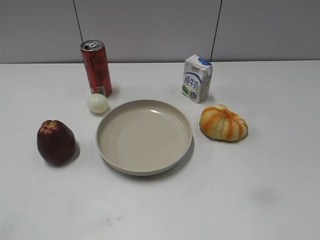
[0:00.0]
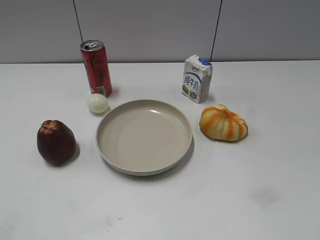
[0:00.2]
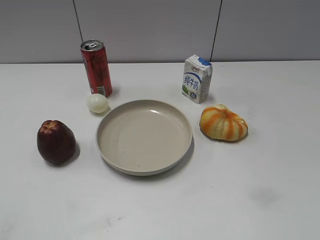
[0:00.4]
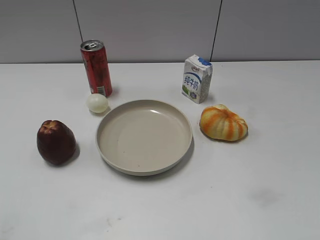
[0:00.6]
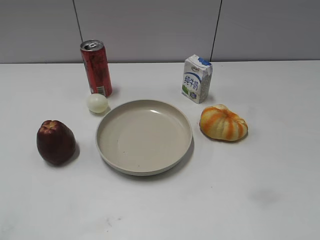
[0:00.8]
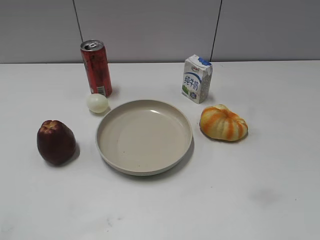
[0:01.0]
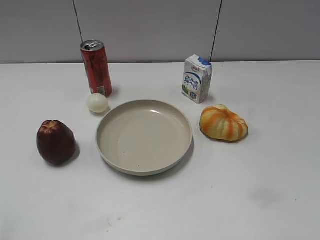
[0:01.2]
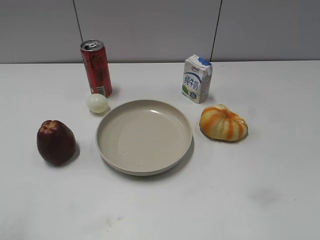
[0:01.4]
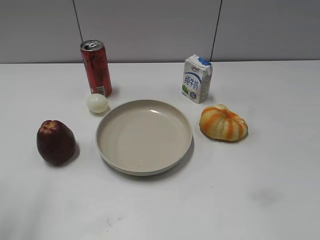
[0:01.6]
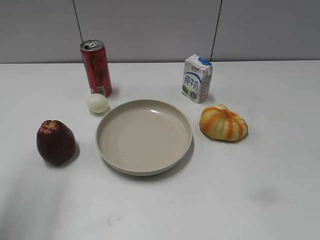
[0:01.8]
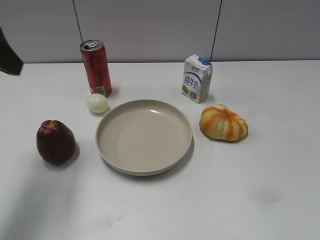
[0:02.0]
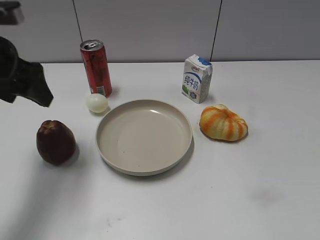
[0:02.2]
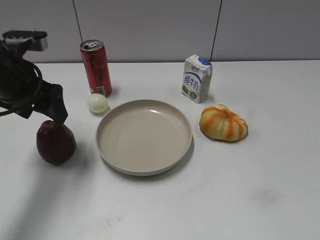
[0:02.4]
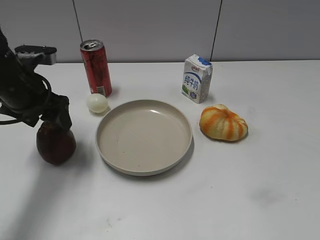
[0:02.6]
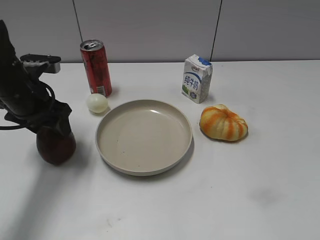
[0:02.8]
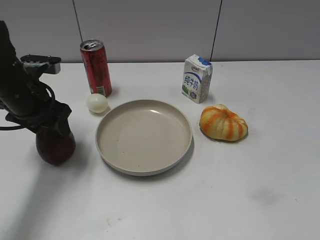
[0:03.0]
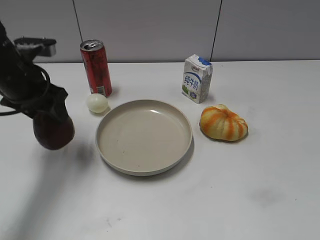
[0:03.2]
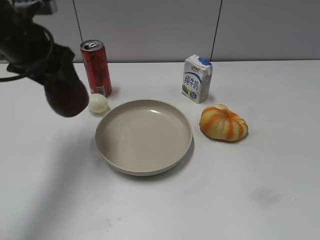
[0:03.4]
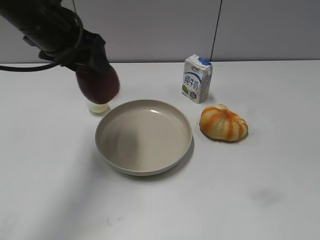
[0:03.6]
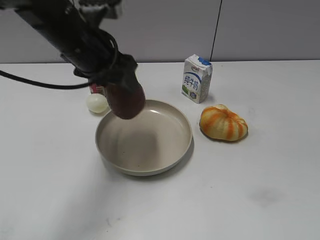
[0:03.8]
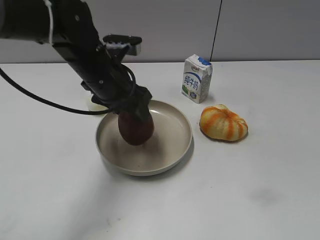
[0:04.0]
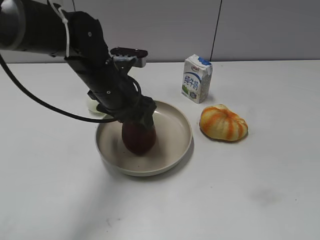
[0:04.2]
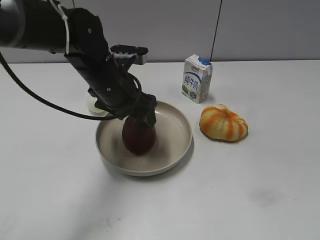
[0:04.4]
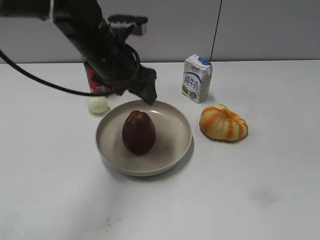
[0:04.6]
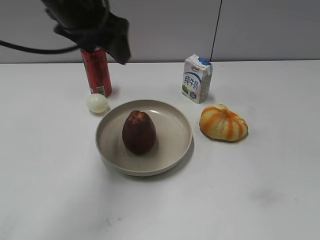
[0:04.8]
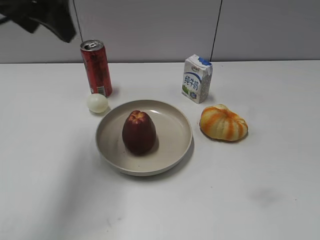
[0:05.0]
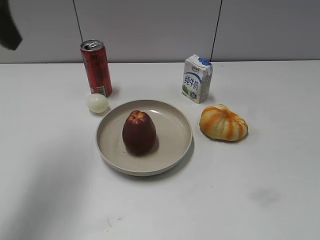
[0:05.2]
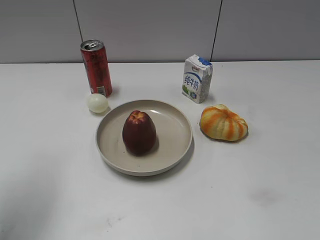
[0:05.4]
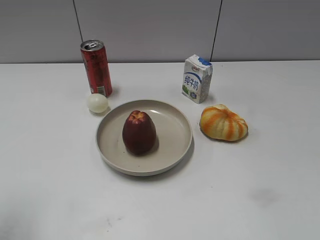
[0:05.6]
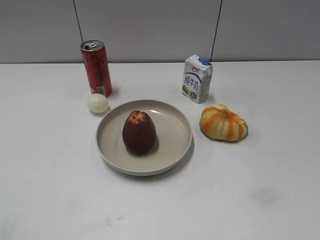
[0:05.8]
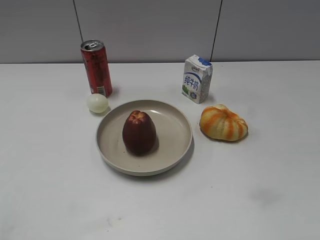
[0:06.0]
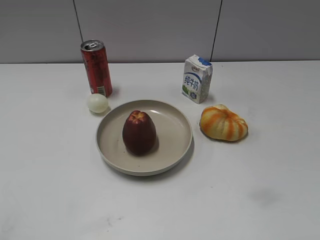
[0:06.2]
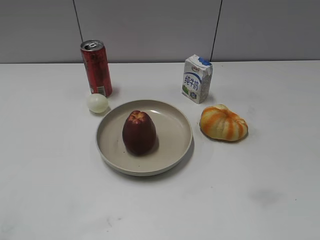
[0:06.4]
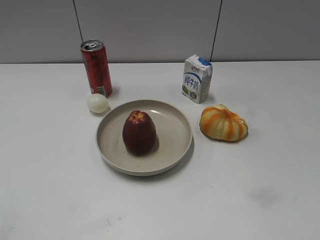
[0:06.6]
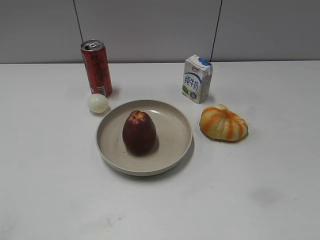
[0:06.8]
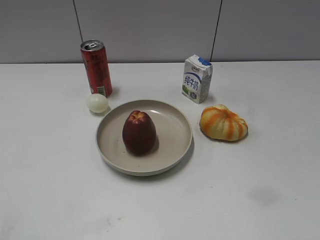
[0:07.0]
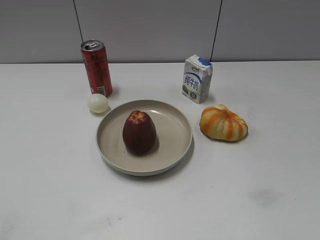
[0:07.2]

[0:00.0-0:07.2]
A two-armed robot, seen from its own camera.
Step, 0:00.8 to 0:02.8: Grasp the apple with left gripper.
Step, 0:03.2 to 0:04.4: Place the apple on the plate with left gripper.
0:01.4 to 0:02.8: The left gripper travels forward and downward by some 30 cm, and opens and closes again.
0:02.8 to 0:04.4: The left gripper moves to the right, roughly 15 cm, and opens its fingers.
0:04.4 to 0:05.8: The left gripper is displaced backward, to the left and upward by approximately 35 cm, and closes up.

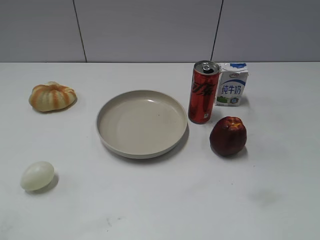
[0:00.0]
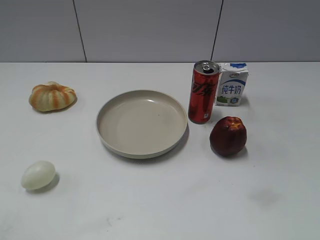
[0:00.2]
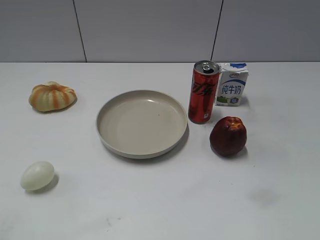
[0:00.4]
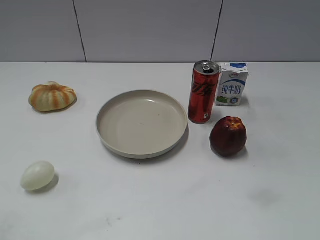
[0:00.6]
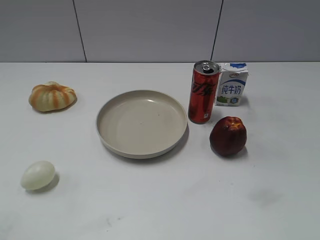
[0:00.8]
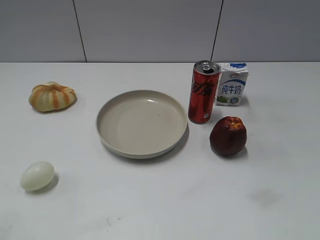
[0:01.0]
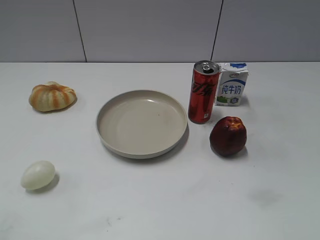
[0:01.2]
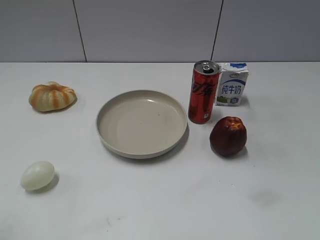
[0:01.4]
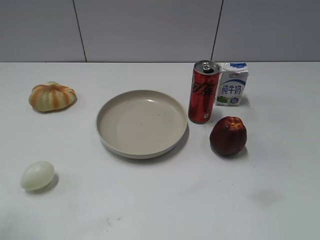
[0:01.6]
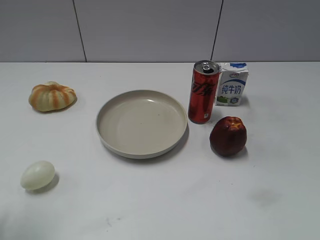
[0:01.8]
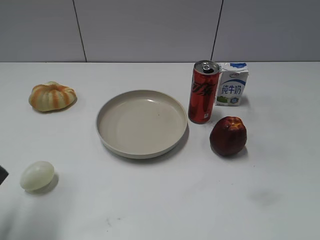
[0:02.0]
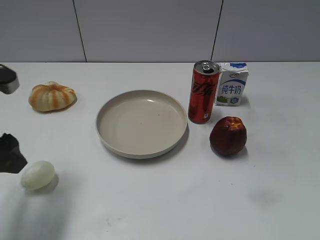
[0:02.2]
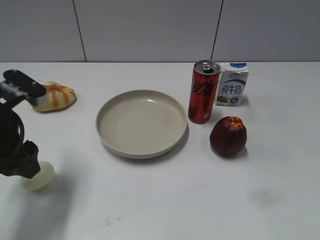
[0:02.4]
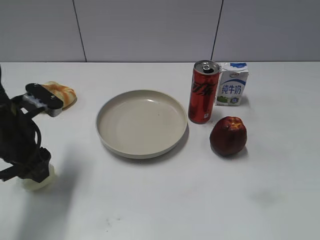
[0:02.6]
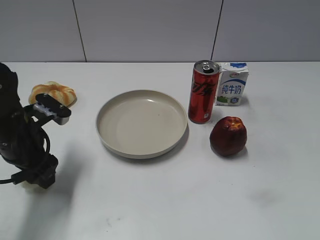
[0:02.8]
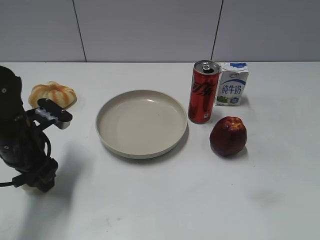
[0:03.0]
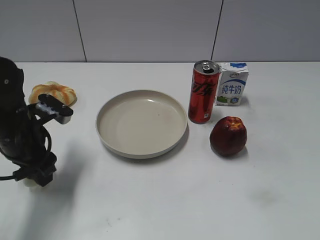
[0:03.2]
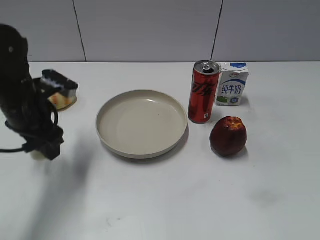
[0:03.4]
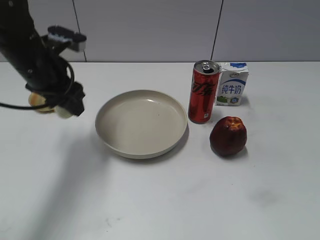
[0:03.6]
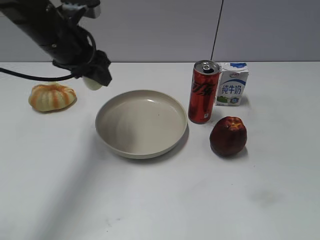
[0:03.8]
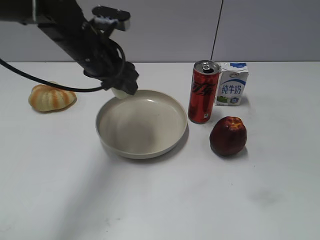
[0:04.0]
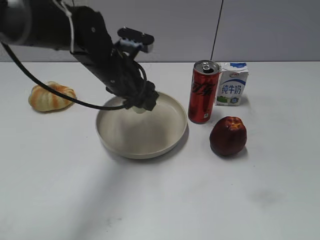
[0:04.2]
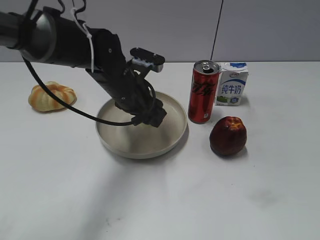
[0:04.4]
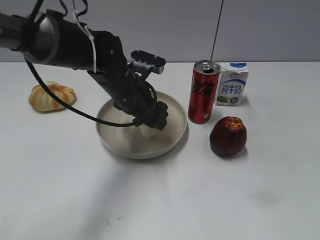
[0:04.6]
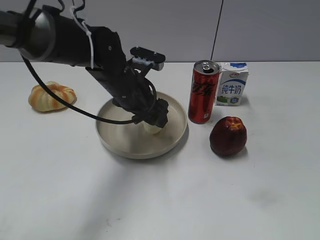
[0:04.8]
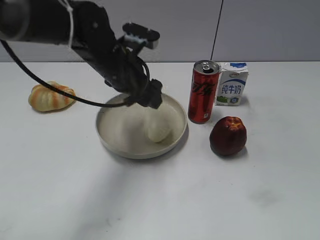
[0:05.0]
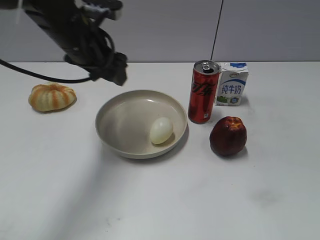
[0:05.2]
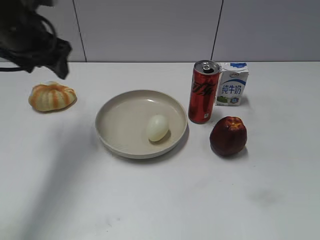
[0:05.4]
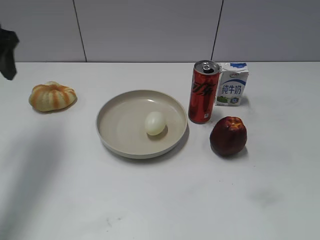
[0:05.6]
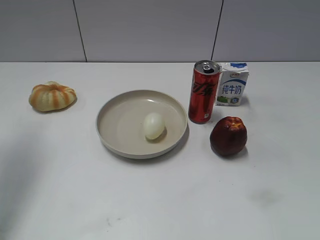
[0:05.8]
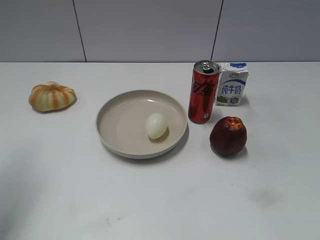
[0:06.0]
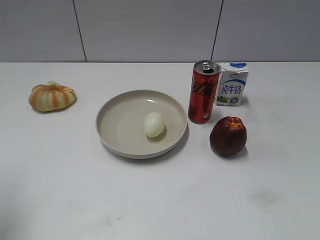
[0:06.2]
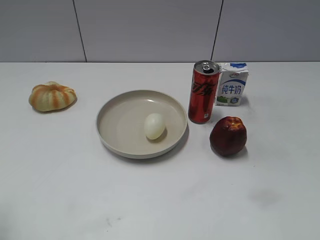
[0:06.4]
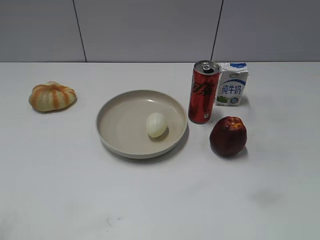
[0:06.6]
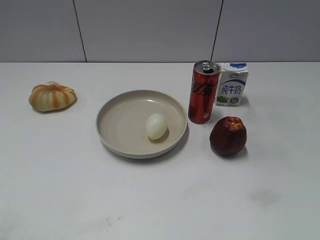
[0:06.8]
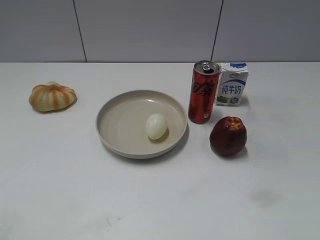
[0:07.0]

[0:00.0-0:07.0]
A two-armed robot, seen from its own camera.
Step, 0:00.0 to 0:03.0: Grasp the egg with left gripper.
Step, 0:03.2 to 0:05.0: Place the egg on the plate with left gripper.
0:01.4 to 0:02.8: The left gripper moves forward, downward and to the right, about 25 cm.
0:02.8 to 0:04.2: The left gripper is displaced to the right and forward by roughly 15 cm, and closes.
0:04.2 to 0:05.6: The left gripper shifts roughly 25 cm to the left and upward, and opens.
0:05.6 to 0:07.0: The left gripper goes about 30 cm backward.

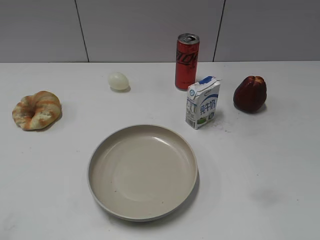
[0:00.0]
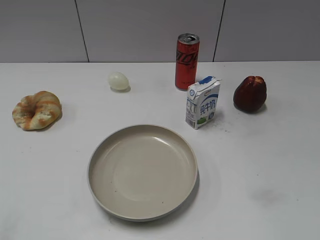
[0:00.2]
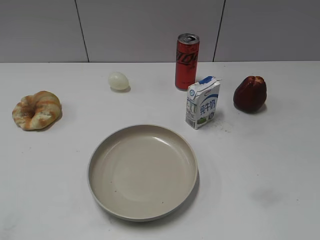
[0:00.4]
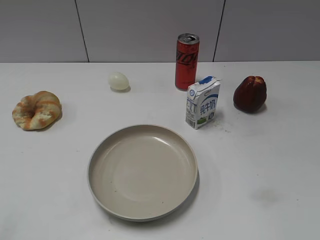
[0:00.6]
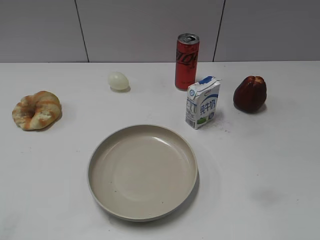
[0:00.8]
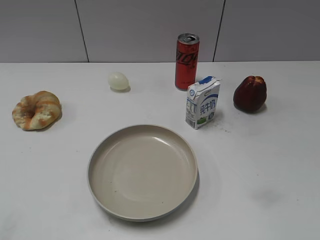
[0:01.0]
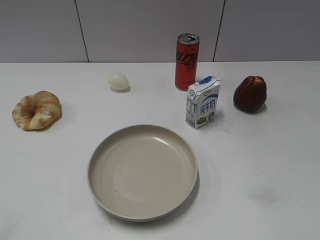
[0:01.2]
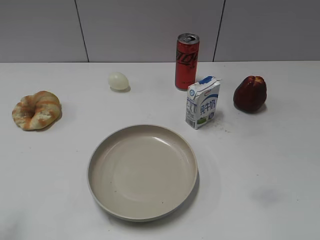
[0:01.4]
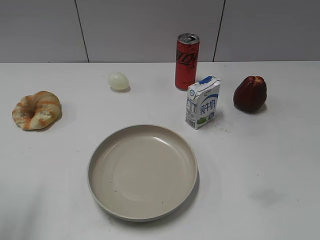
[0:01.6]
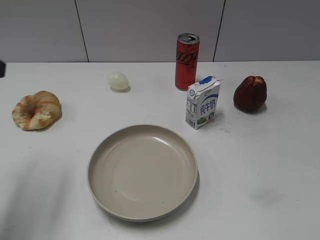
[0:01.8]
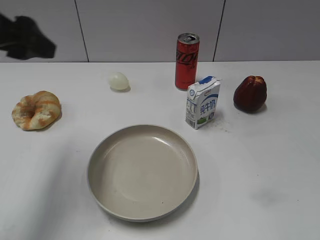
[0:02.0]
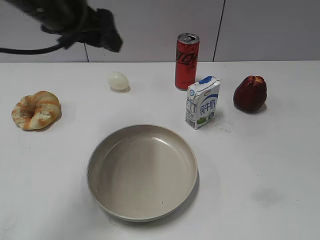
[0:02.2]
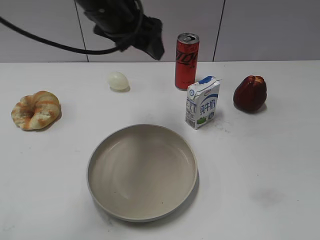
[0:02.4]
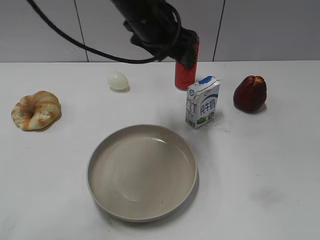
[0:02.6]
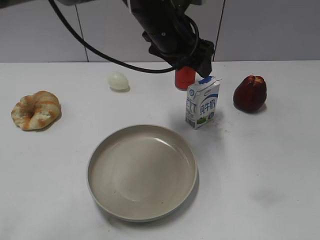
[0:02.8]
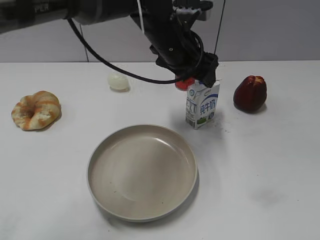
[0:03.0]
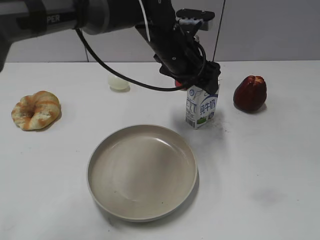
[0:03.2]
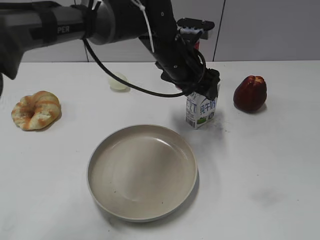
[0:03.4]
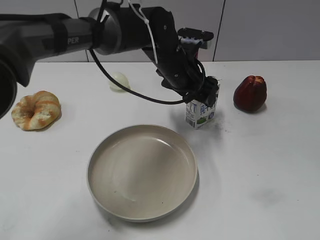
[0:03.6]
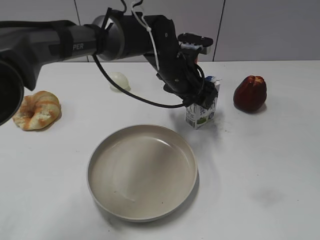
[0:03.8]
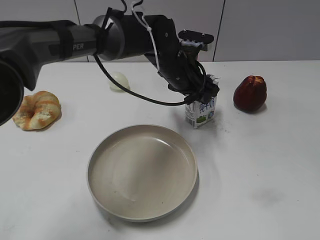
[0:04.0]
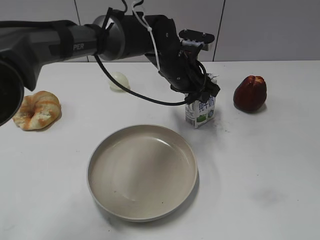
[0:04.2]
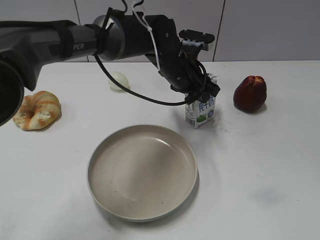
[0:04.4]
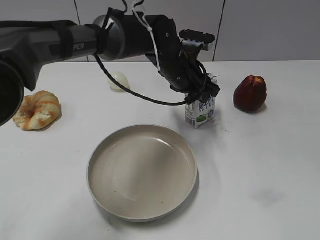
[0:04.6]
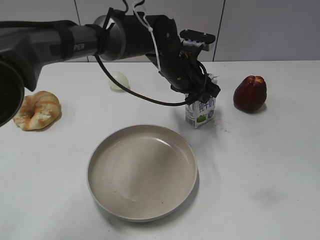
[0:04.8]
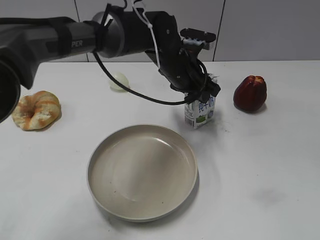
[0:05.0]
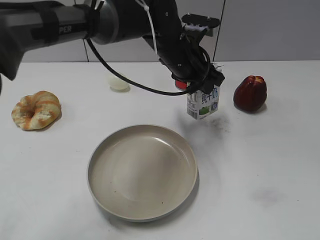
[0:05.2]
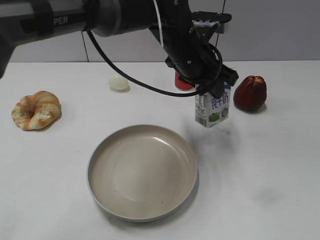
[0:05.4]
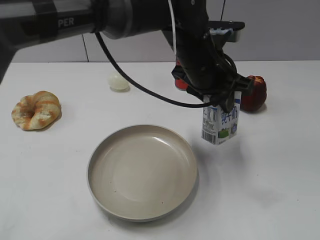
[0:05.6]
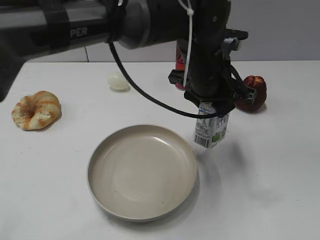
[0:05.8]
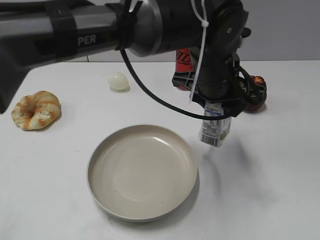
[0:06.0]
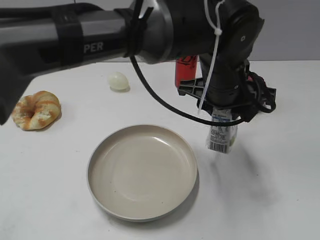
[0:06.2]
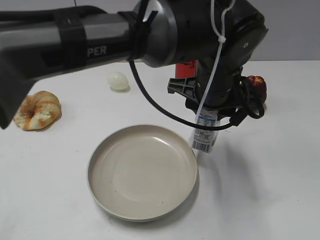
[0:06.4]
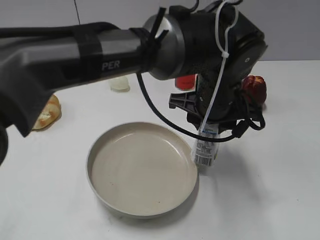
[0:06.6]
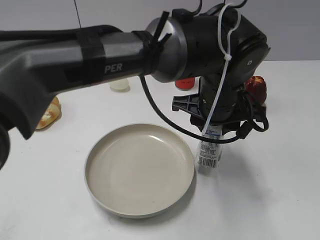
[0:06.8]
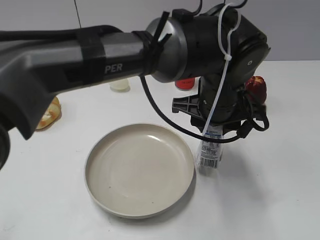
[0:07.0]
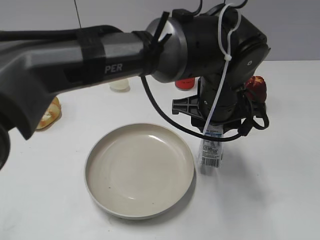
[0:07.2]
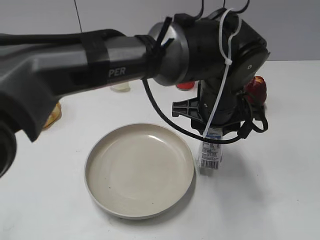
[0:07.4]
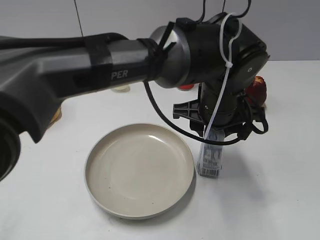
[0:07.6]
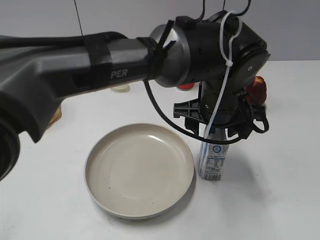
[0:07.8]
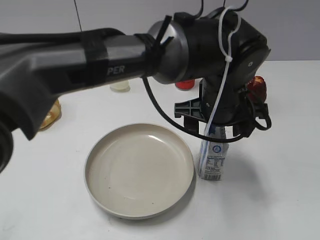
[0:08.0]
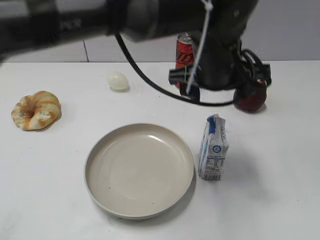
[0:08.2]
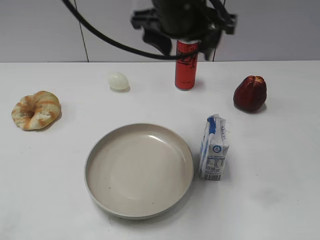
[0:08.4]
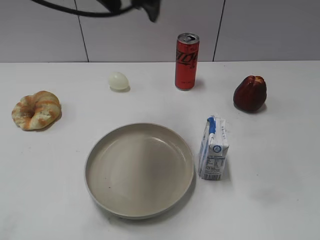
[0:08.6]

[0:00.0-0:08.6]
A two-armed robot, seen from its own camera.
Step, 0:00.0 to 0:04.2: Grasp the milk with left gripper.
Step, 0:04.4 to 0:08.0: Place the milk on the table with left gripper.
0:01.4 to 0:02.8: The left gripper is displaced to the right and forward by some 40 cm.
0:02.8 to 0:04.4: The left gripper is displaced downward by some 10 cm, and closes up.
0:04.4 to 0:05.8: The left gripper moves backward and upward, about 10 cm.
0:07.2 to 0:08.6: The left gripper moves upward and to the left, some 25 cm, and opens its fingers.
